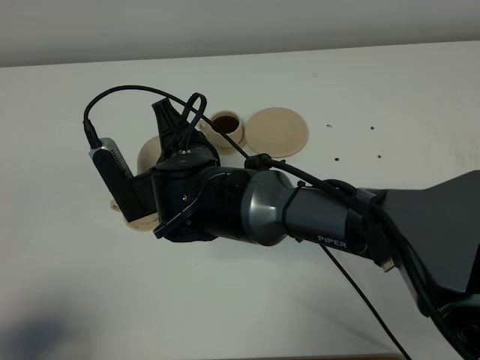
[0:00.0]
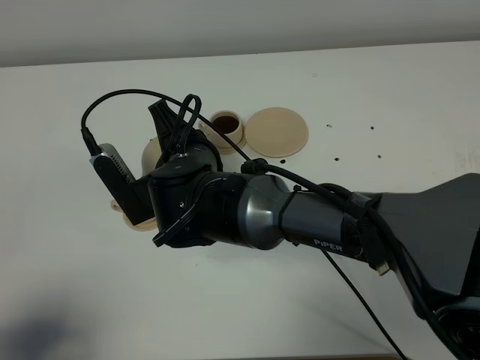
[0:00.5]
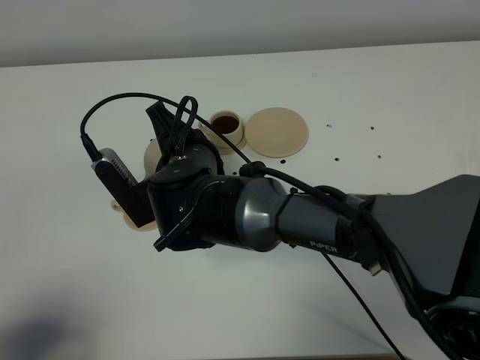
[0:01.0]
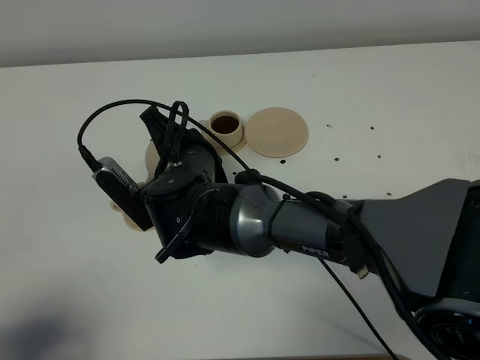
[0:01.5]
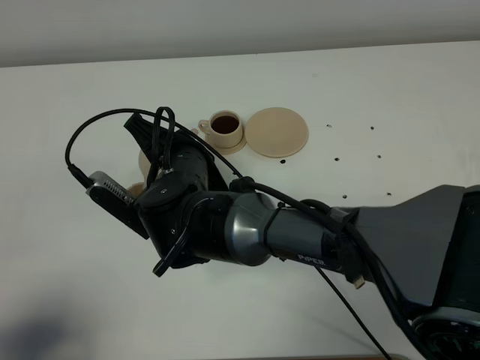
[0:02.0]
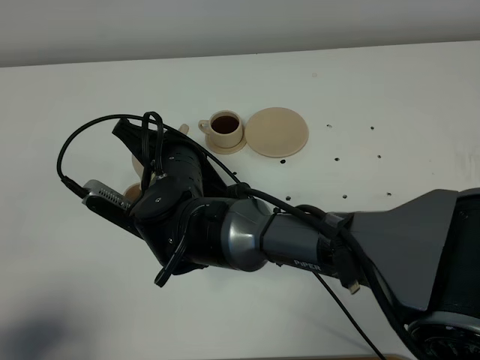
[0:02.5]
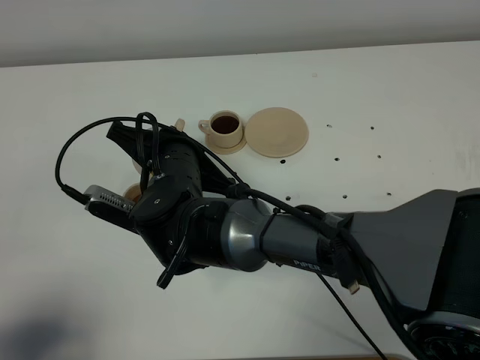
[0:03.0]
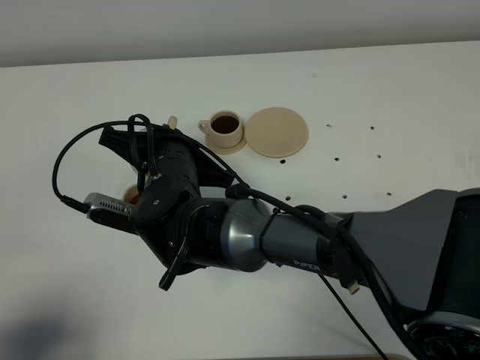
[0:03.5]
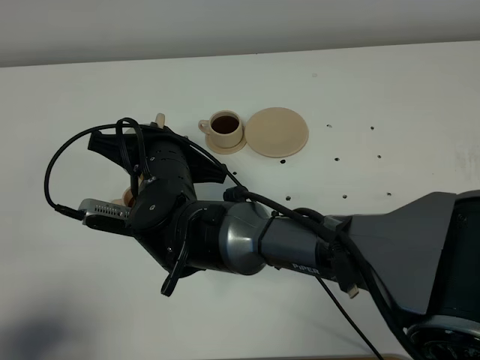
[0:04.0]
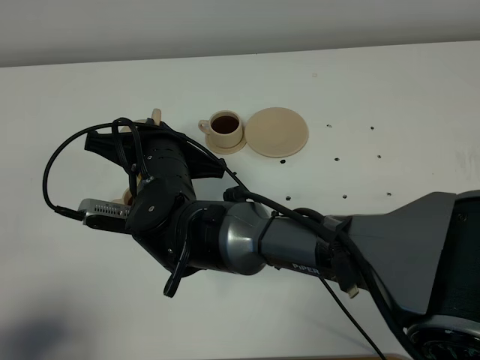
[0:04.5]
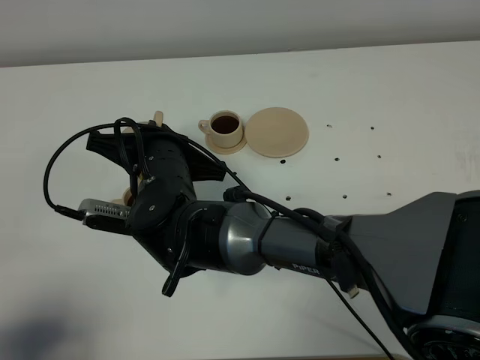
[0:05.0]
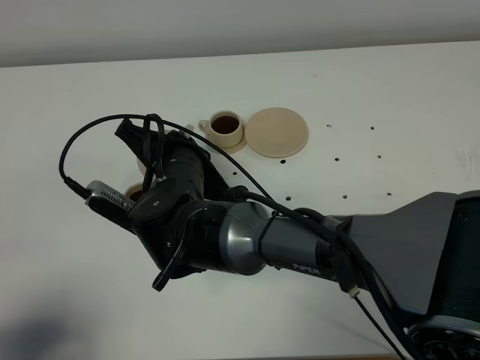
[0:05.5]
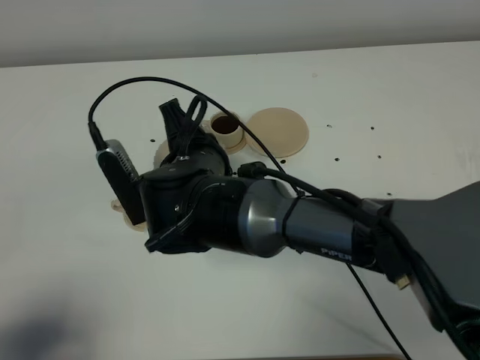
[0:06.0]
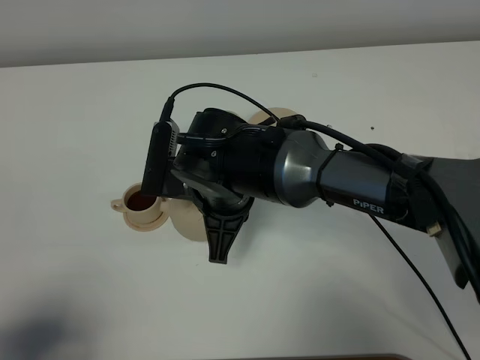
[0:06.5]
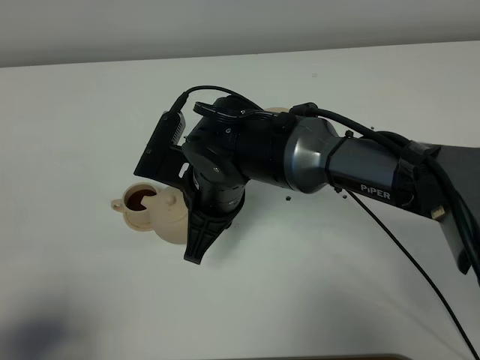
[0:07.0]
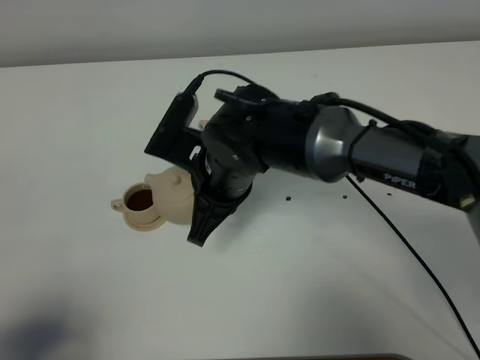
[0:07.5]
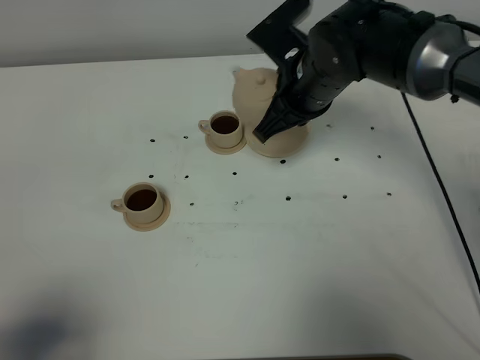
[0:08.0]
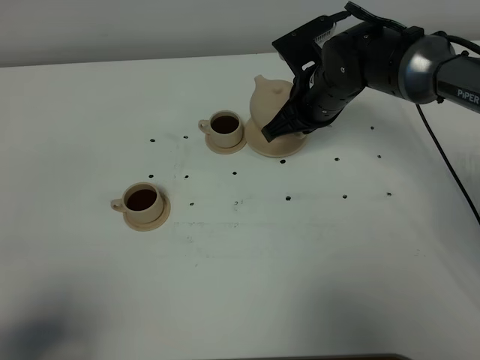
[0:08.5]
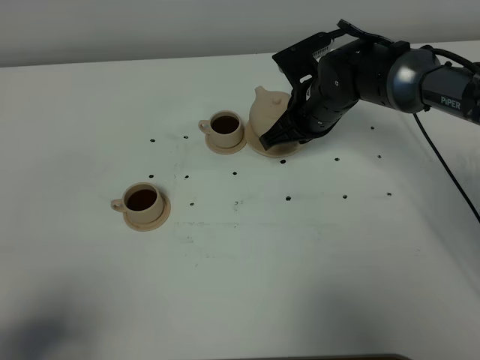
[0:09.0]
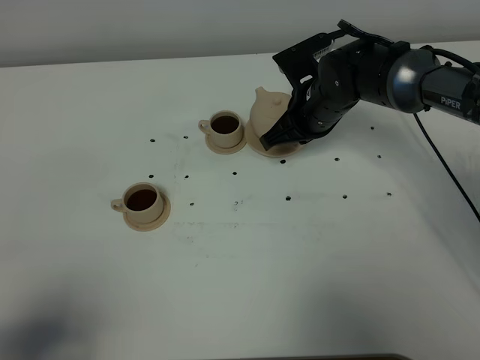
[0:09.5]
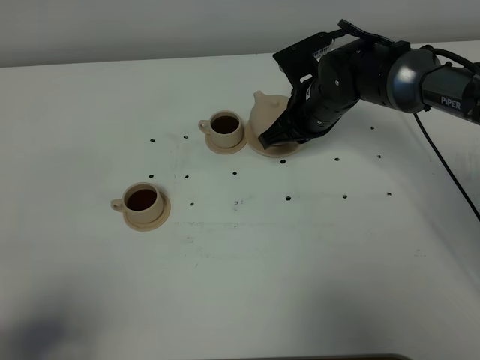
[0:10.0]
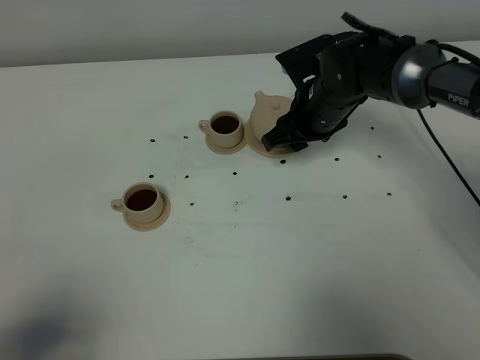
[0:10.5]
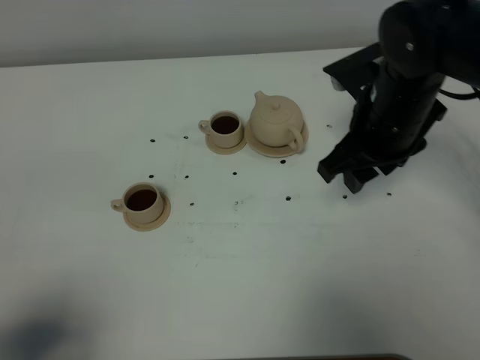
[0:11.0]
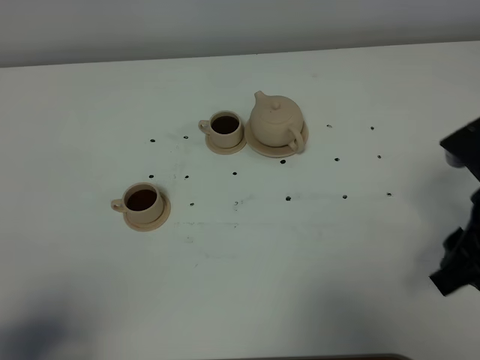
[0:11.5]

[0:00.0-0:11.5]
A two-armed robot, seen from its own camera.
Task of the whole recording: grasp the brown teapot and pour the tea into the two brown teacups one by one, put the brown teapot back in its original place.
Step, 0:00.0 to 0:05.5: Pour tea into the teacup with the right gripper.
0:07.5 to 0:09.5: The right gripper goes some 20 cm forward, to the right and downward.
0:09.5 to 0:11.5: The right gripper heads backward, to the right and upward, covering roughly 30 cm, and opens.

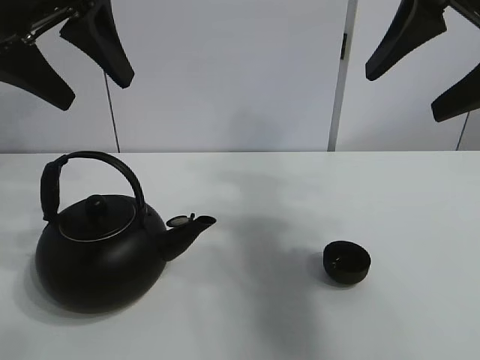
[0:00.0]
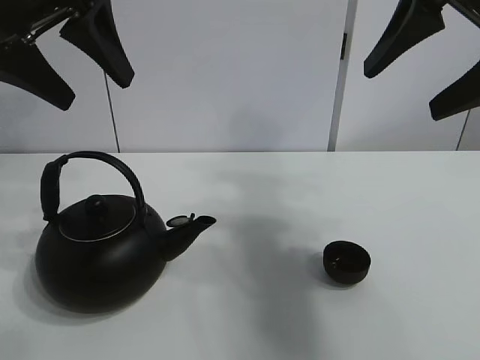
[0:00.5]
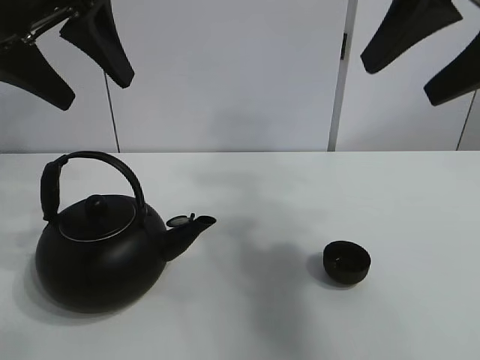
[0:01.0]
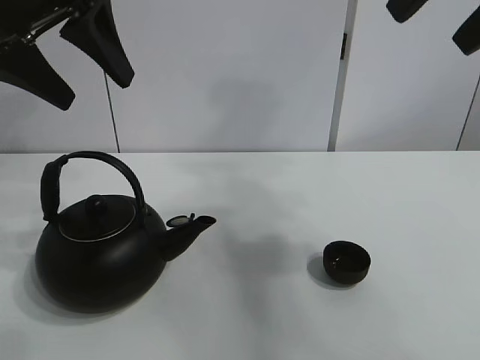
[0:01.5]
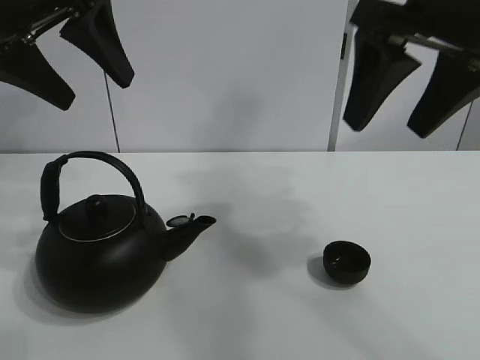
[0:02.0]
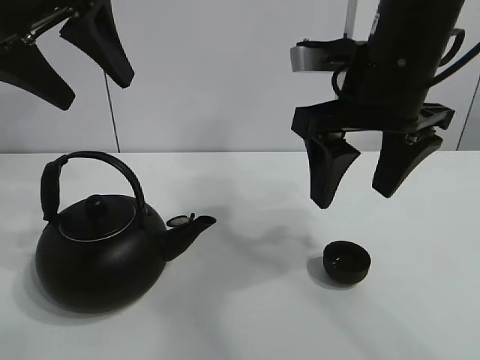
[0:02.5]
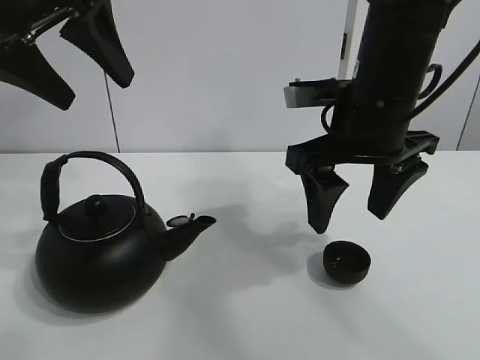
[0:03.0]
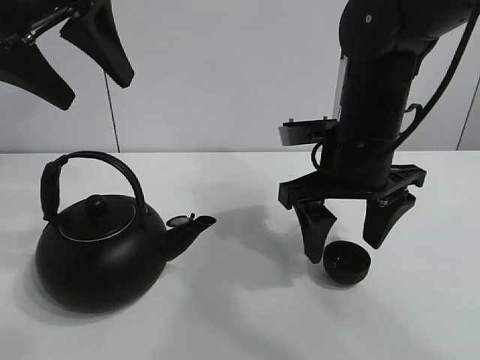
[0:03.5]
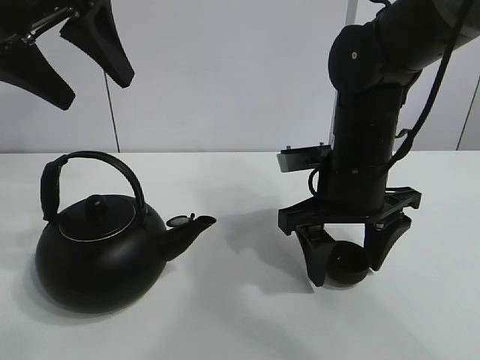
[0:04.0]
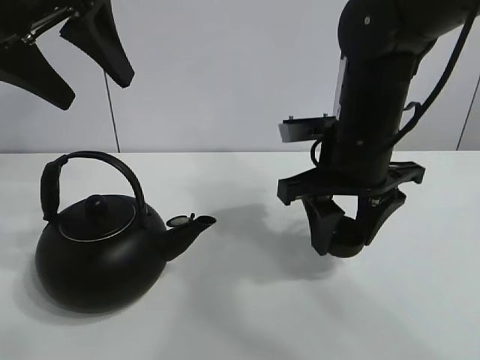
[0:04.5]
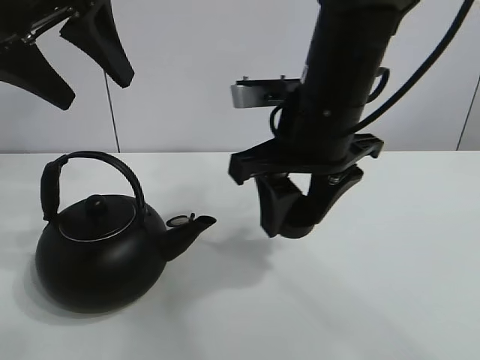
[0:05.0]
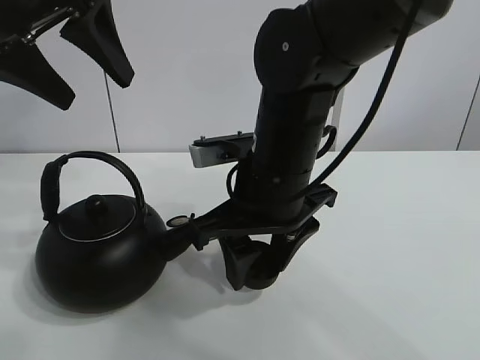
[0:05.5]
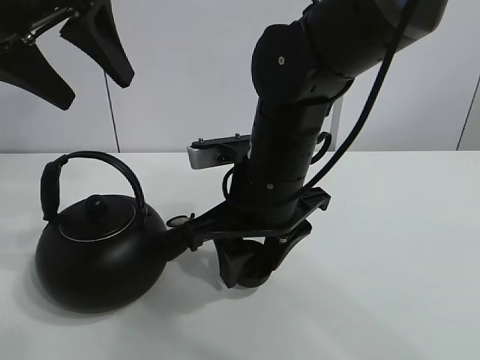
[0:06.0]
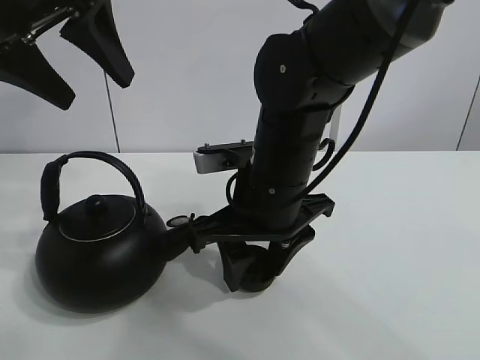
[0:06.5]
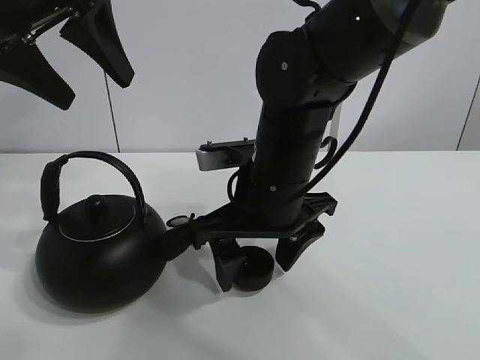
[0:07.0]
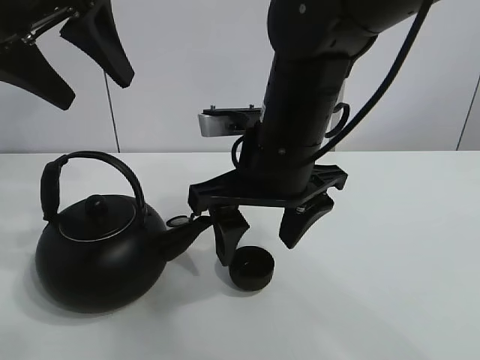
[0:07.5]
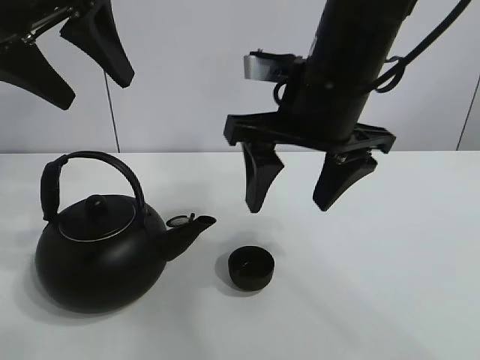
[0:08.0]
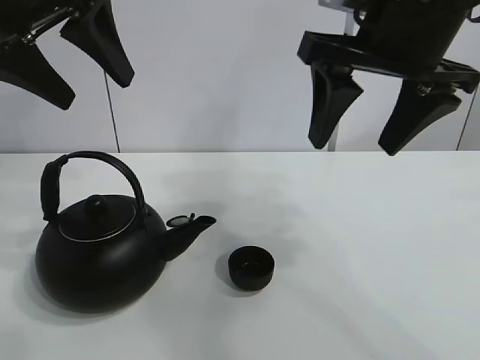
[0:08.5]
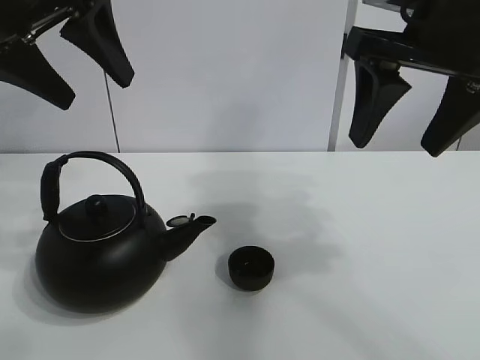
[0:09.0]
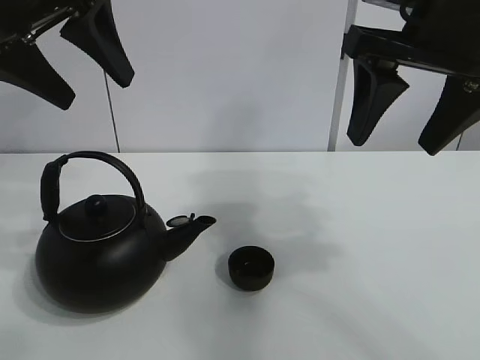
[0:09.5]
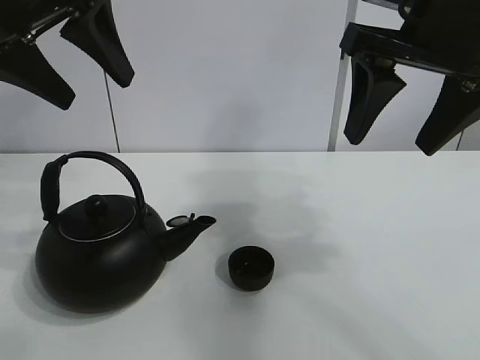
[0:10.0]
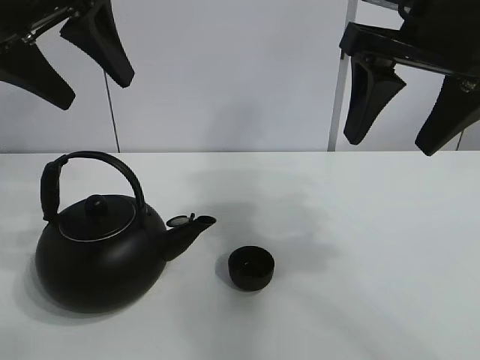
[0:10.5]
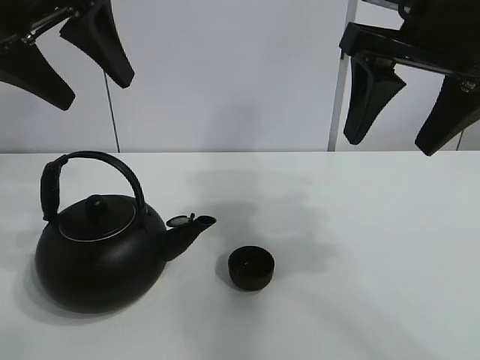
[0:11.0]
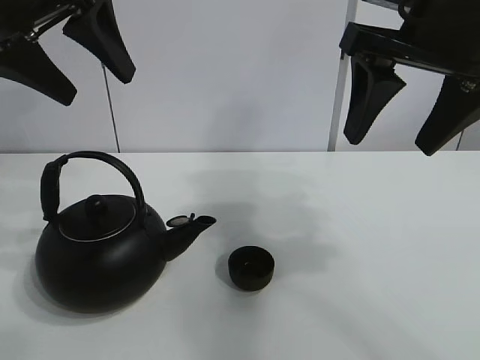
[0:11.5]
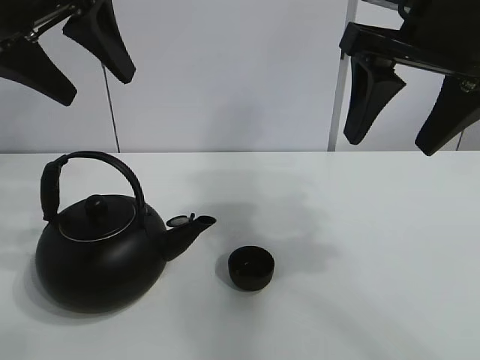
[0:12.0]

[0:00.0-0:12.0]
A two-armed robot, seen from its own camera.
Task of the whole recording: pour tea into the teacup.
Step, 0:00.0 to 0:04.0: Pick up the teacup with the right gripper.
Step, 0:04.5 to 0:06.5: Place the teacup in the center of view with the right gripper.
0:02.0 to 0:04.0: The right gripper goes roughly 20 cm downward.
0:04.0 to 0:06.0: The right gripper heads to the left, covering roughly 10 cm, and closes.
0:06.0 to 0:08.0: The right gripper is displaced upward by approximately 10 cm, and opens.
0:08.0 to 0:10.0: The right gripper travels to the right and upward by about 10 cm.
0:10.0 to 0:12.0: Both grippers stay put.

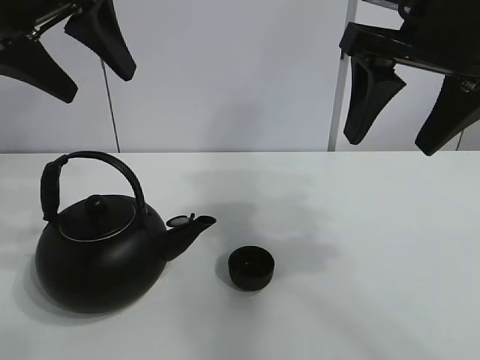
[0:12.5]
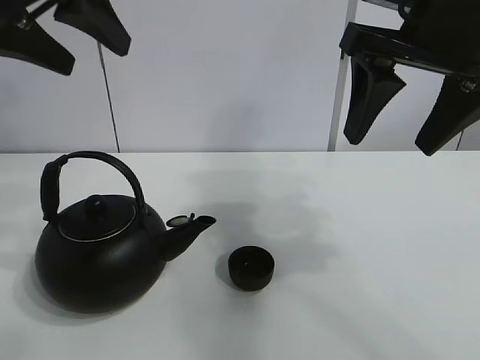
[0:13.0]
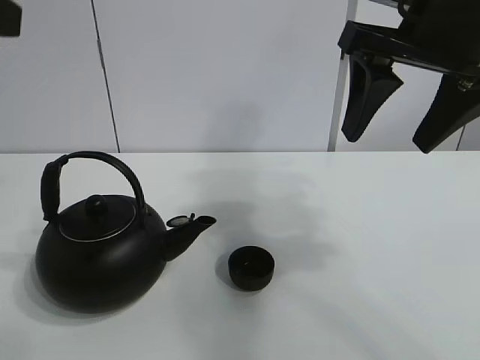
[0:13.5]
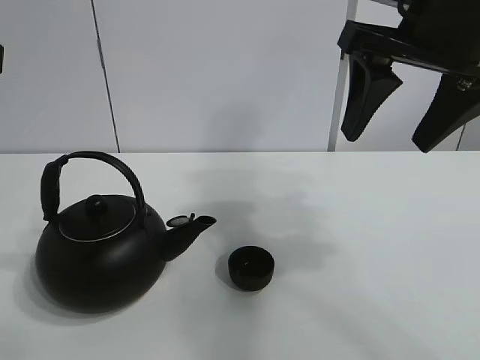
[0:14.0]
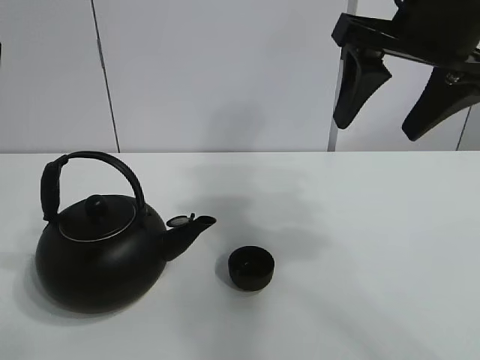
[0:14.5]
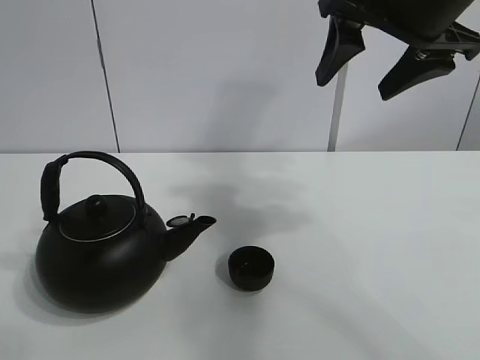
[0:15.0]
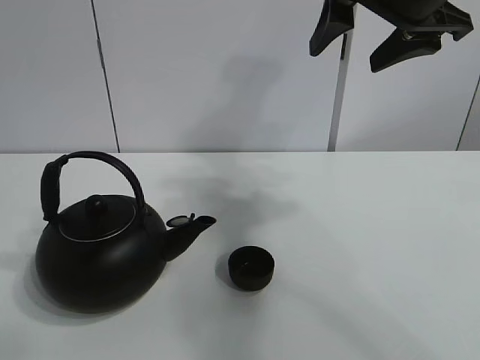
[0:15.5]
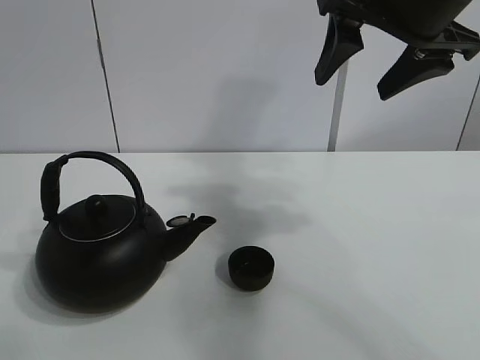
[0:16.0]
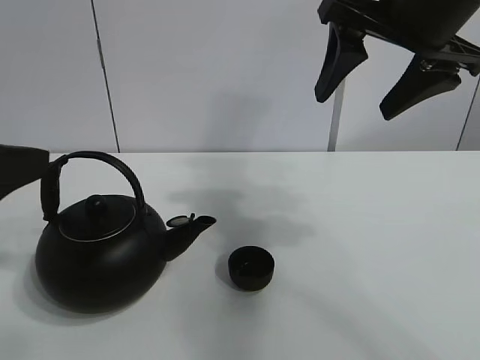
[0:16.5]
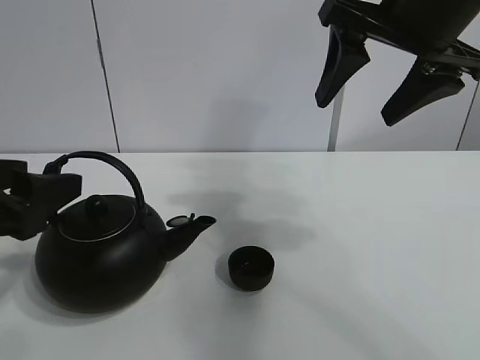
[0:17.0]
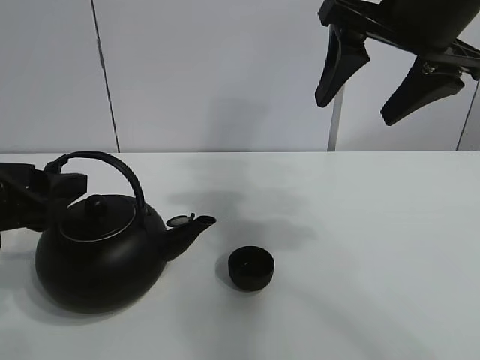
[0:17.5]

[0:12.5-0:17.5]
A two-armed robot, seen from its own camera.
Task of the whole recording: pour tea into the teacup.
0:12.5 to 0:15.0: The left gripper goes roughly 15 cm backward and to the left.
0:15.0 to 0:17.5: The left gripper goes some 15 cm downward.
